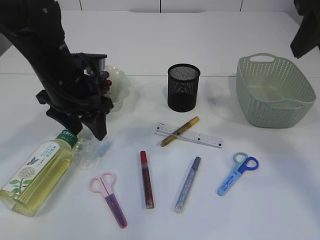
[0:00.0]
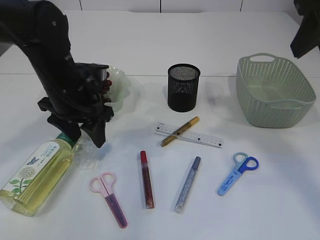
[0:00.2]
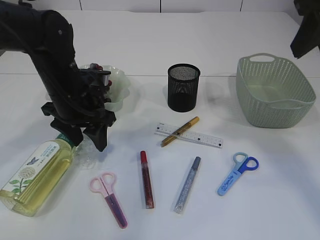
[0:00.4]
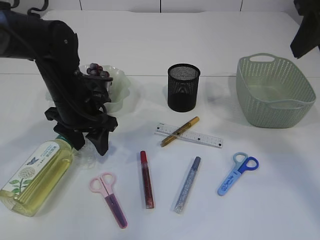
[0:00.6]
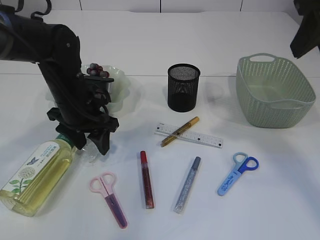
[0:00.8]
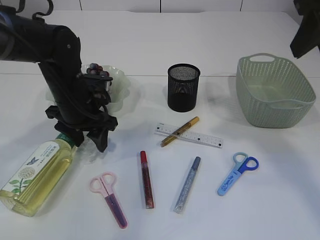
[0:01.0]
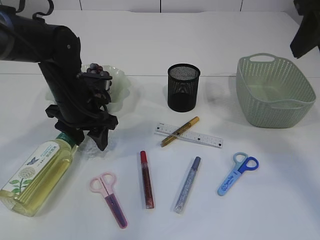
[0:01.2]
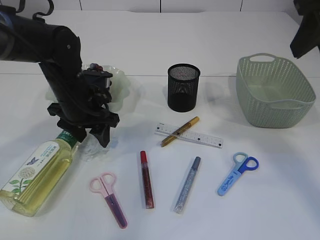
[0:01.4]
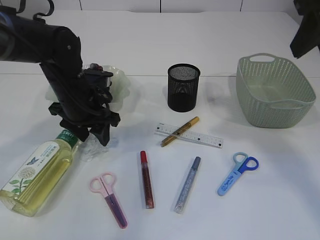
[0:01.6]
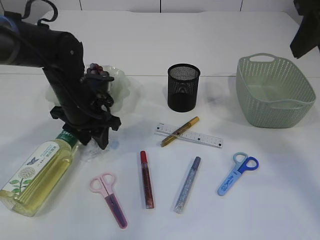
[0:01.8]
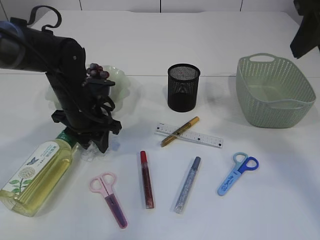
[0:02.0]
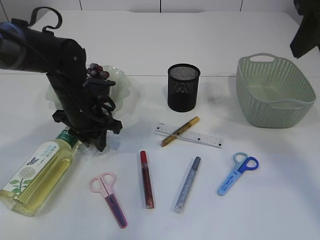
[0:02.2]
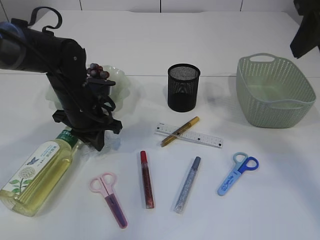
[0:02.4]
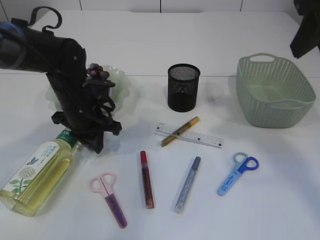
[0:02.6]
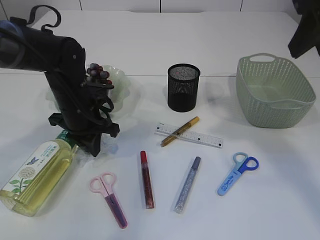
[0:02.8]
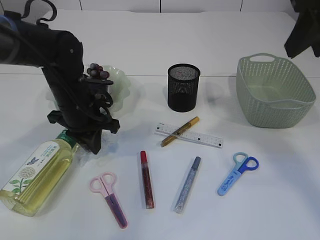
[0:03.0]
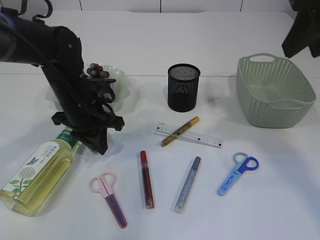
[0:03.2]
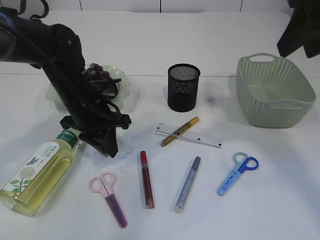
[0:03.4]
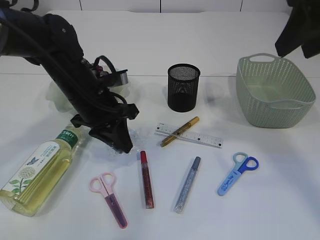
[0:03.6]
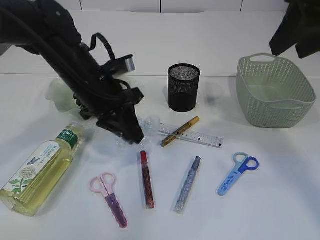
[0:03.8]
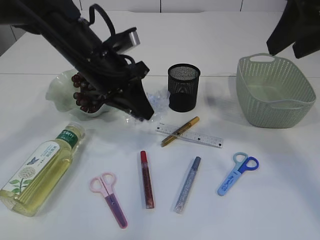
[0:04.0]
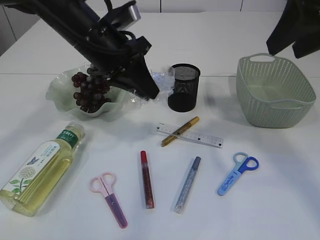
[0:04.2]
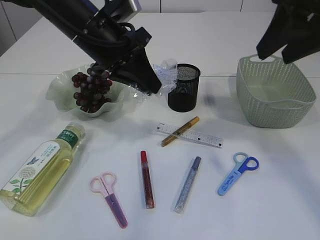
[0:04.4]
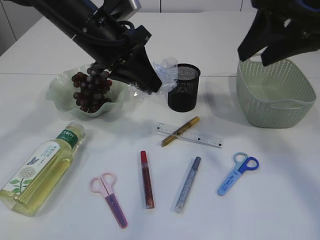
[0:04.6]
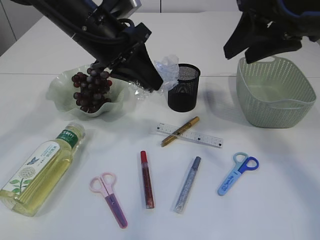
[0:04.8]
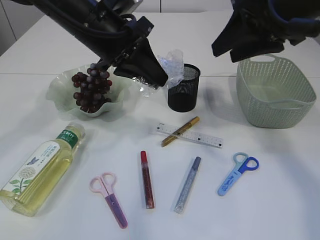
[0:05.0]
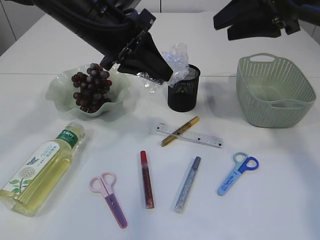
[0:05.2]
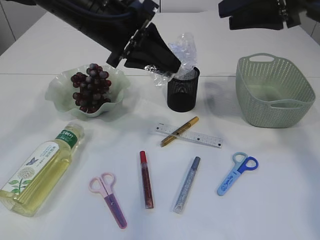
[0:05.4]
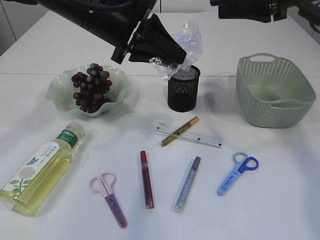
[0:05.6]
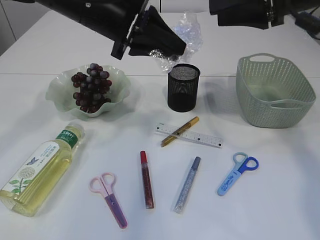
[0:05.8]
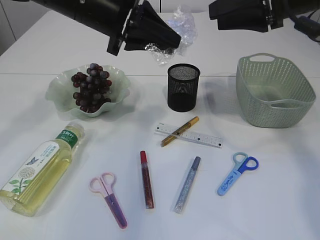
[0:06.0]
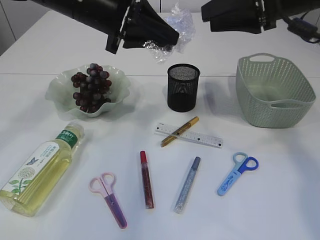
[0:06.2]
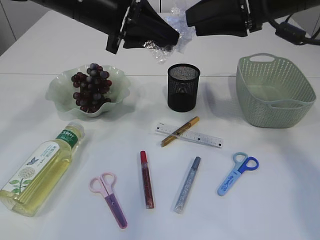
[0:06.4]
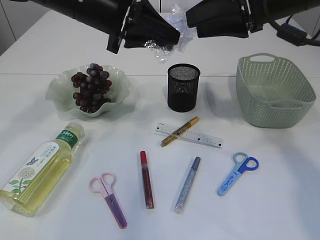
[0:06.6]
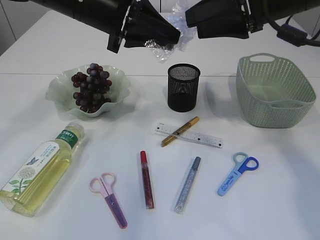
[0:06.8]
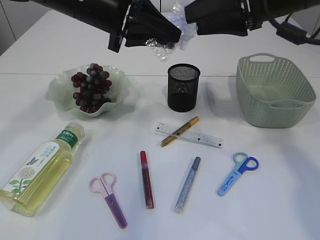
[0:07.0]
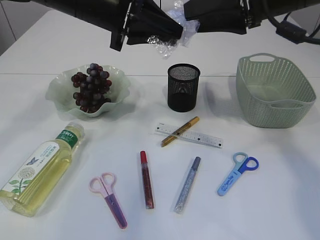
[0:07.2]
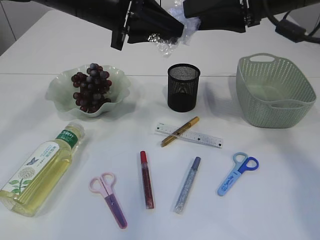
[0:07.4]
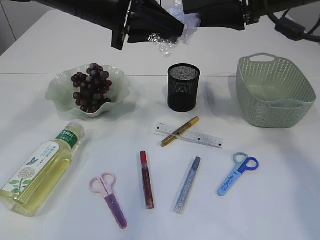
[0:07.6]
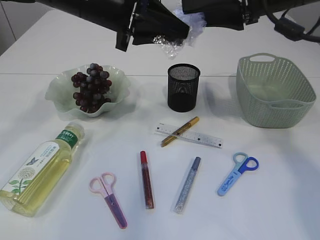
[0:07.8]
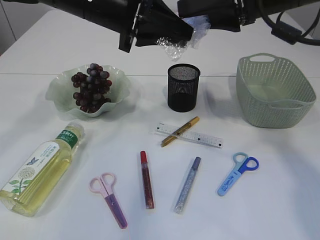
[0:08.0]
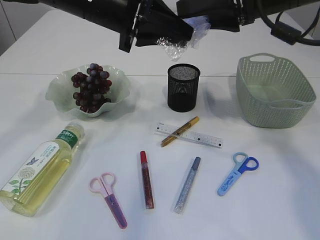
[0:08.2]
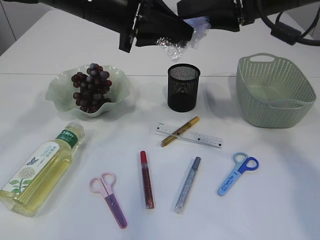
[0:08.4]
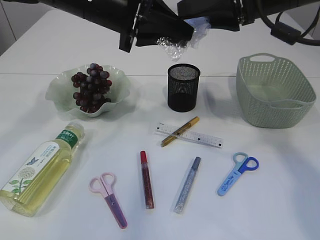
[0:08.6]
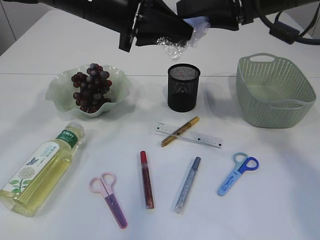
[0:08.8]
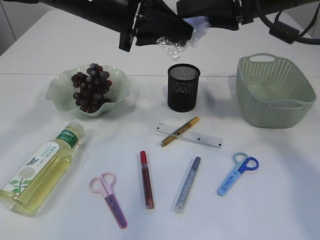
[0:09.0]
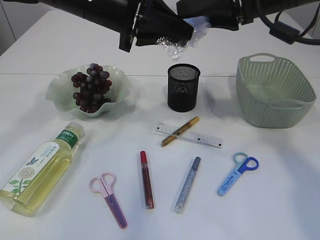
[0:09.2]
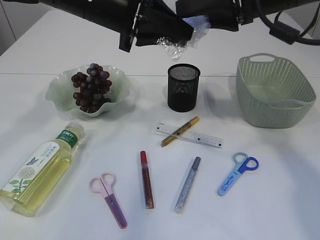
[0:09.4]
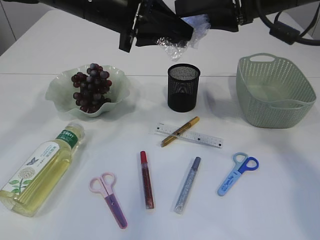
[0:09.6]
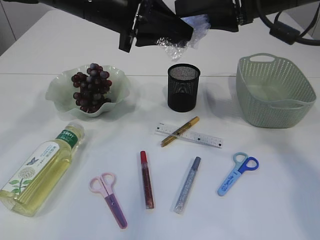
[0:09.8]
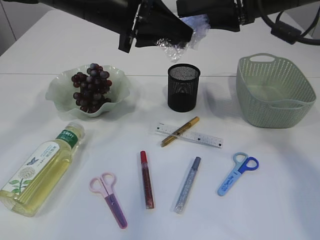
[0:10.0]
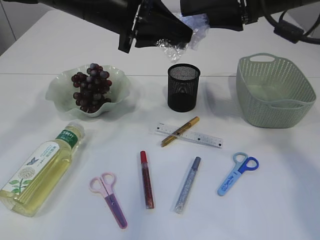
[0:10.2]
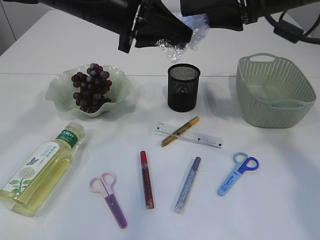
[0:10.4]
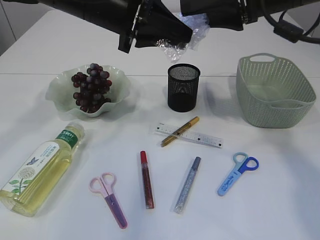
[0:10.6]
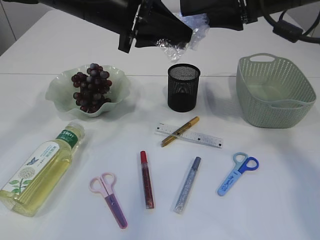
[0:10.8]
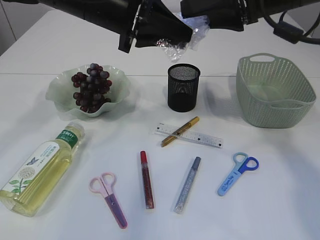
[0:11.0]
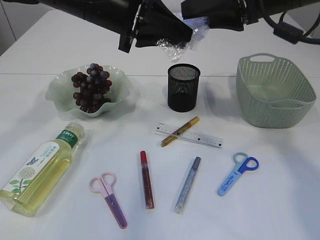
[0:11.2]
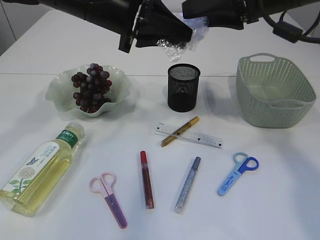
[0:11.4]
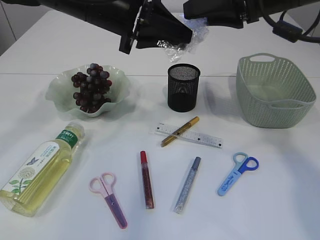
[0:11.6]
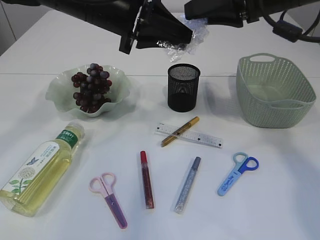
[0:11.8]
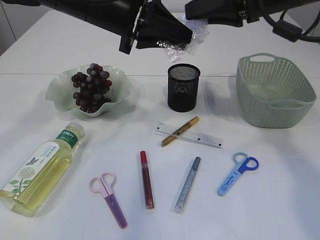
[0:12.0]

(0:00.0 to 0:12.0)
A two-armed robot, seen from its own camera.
Step, 0:00.0 - 0:04.4: Pick up the plastic.
0:00.0 - 0:01.6: The left gripper shifts roughly 5 cm downward.
0:01.6 - 0:03.0: The left gripper closes its fingers.
0:03.0 - 0:04.4: The left gripper goes about 15 cm upward.
0:04.4 - 0:06.0: The right gripper travels forward by approximately 10 cm.
0:06.0 - 0:07.6: The grippers move only a little.
0:07.6 - 0:10.4: Both grippers stay about where they are.
0:10.4 - 0:12.0: The right gripper closes its fingers.

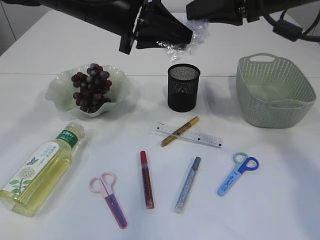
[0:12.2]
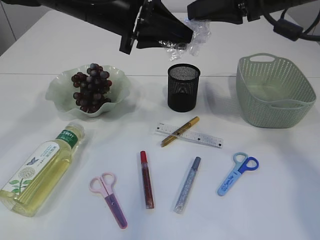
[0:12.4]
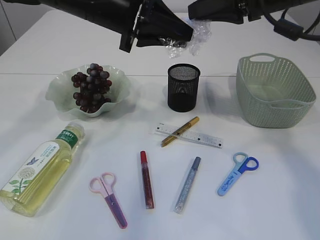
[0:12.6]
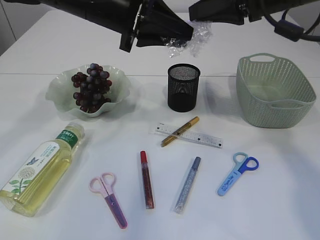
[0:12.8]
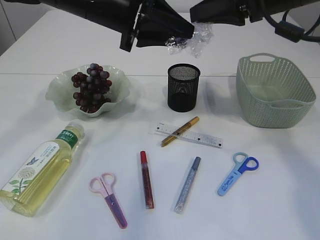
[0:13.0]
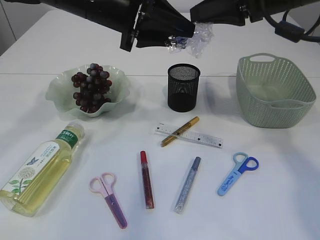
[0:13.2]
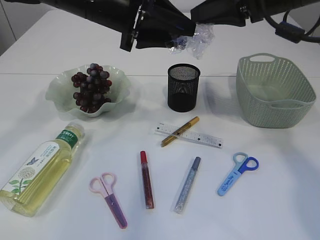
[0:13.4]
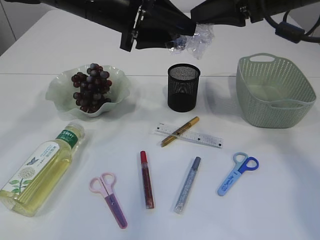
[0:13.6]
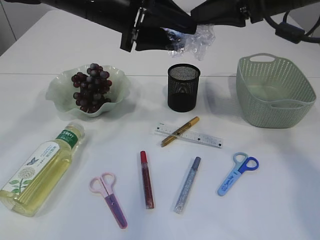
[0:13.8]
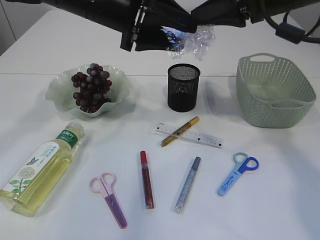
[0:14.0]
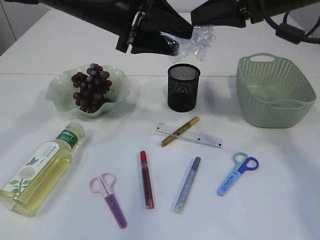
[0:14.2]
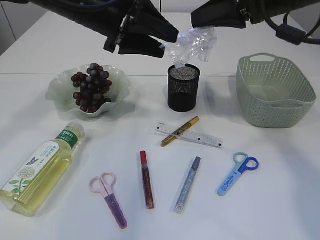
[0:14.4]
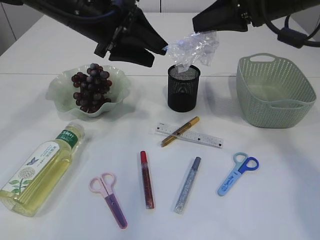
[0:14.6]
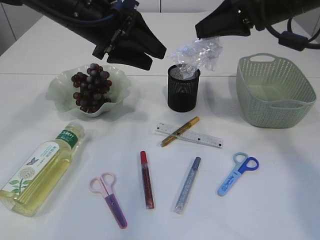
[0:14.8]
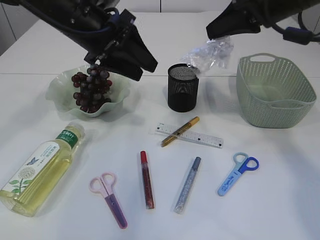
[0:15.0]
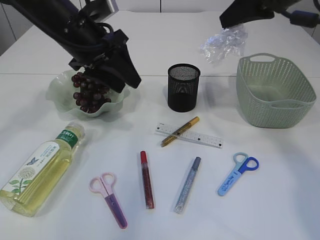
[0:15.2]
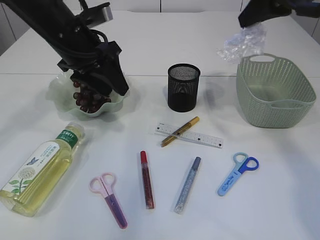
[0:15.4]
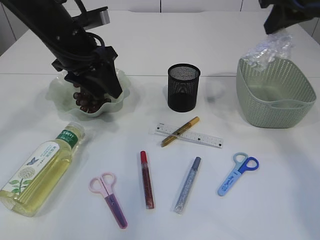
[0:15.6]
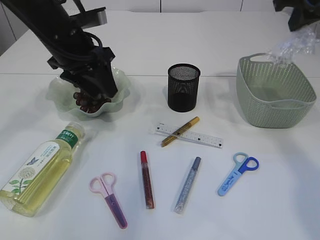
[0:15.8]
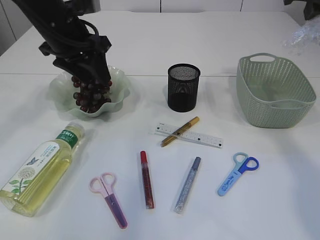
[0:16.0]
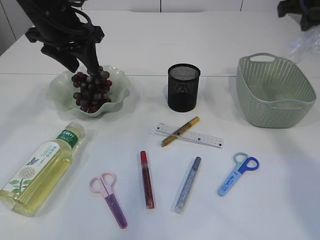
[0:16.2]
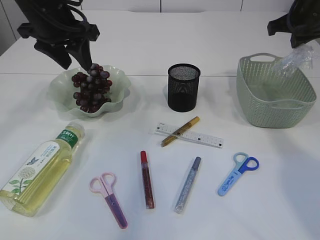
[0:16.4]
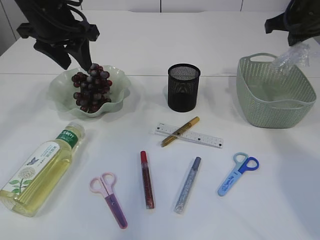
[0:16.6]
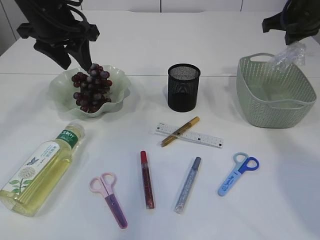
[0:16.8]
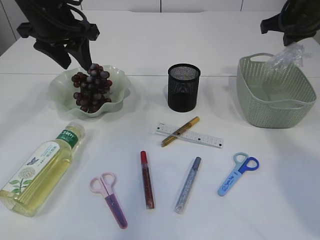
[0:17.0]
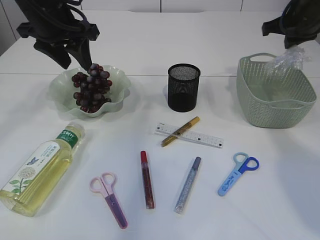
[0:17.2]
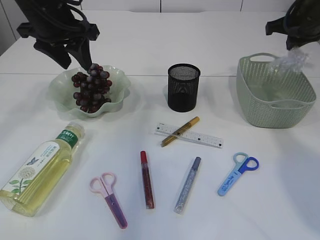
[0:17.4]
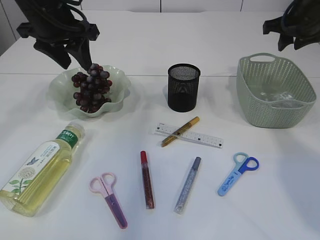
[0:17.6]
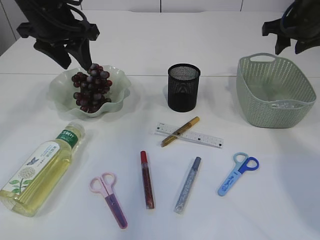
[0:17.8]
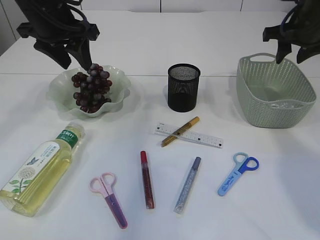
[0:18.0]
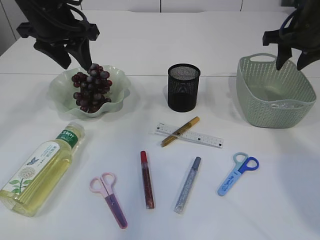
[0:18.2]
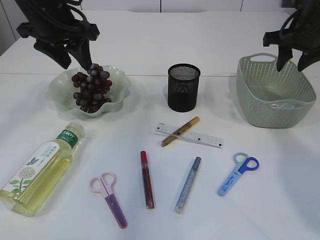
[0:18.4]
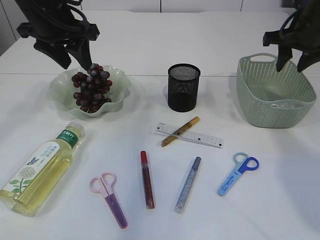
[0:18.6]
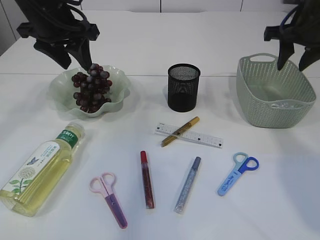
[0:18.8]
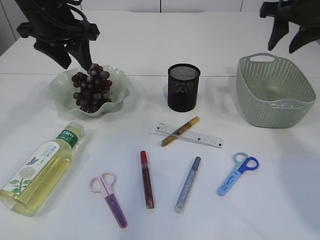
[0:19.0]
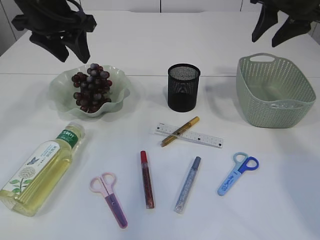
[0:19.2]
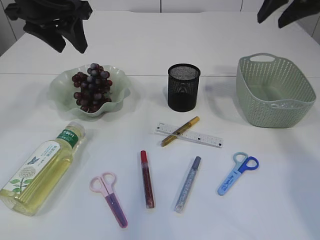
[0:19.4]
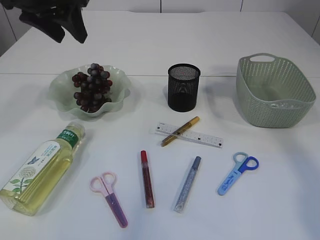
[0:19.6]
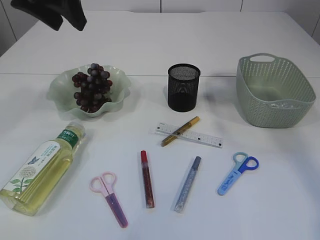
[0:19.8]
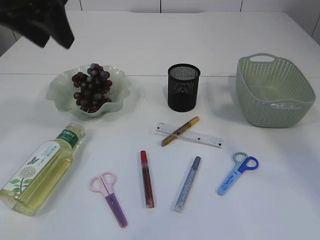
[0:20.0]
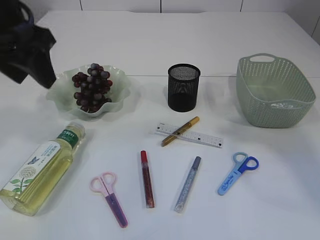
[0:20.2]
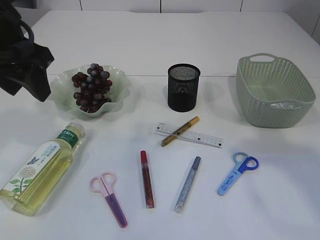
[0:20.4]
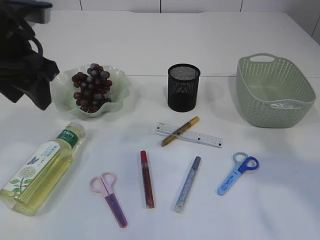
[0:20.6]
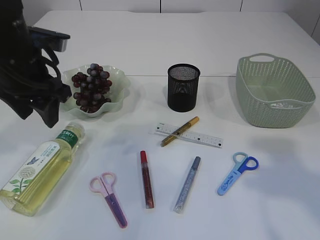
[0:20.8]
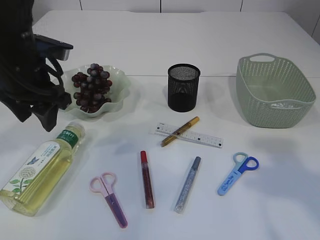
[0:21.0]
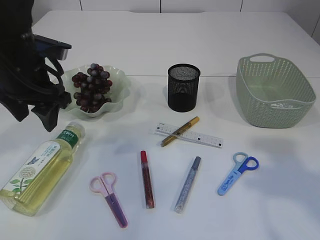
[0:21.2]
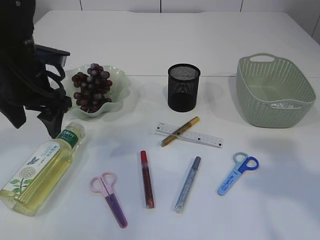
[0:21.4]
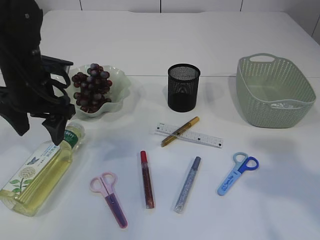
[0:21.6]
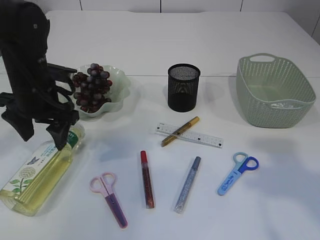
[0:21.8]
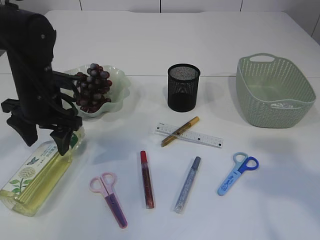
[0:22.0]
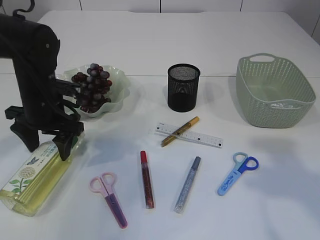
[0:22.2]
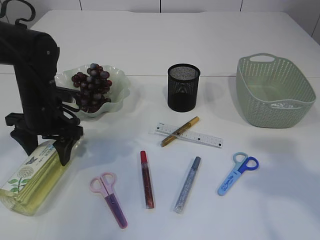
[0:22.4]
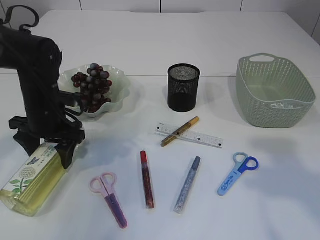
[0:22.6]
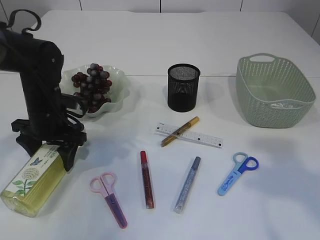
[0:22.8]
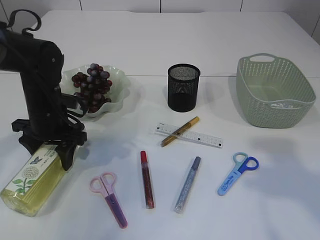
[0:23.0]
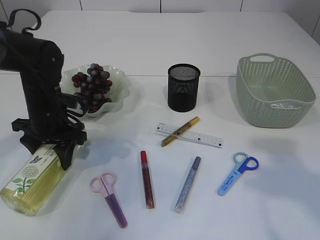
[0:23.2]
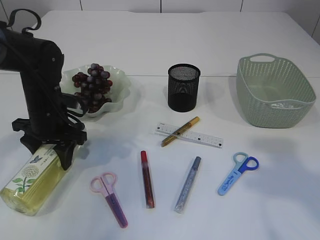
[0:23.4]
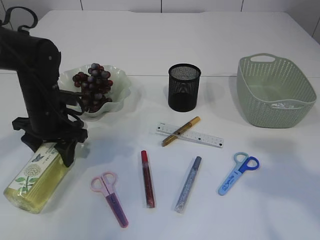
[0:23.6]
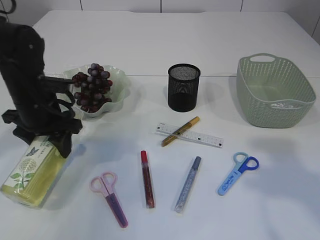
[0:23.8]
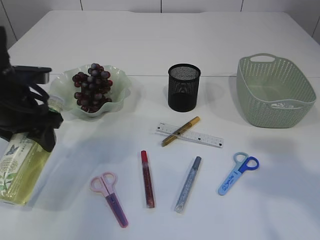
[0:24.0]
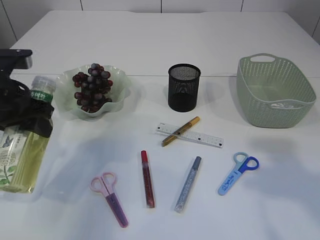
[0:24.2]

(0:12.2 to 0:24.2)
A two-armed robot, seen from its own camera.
Step, 0:12.2 - 0:15.0: Hand over the plastic.
Step, 0:15.2 - 0:18.4: Place the plastic in the basket.
0:12.2 - 0:13.8: The left gripper opens its fingers.
0:13.8 - 0:15.2: The left gripper moves some 5 cm.
0:15.2 - 0:16.6: The left gripper changes place by about 5 cm. The right gripper heads to the right, forward and downward, covering approximately 10 cm.
0:16.6 - 0:18.2: The right gripper opens up.
0:18.2 - 0:19.8: The left gripper goes about 10 cm upward and backward. Meanwhile the right gripper shifts some 20 cm upward and backward.
0:19.8 - 0:21.2: The right gripper shifts roughly 20 cm backward and downward. The left gripper shifts roughly 15 cm downward.
0:21.2 - 0:22.6: The left gripper goes some 10 cm downward.
0:22.6 - 0:24.2: The left gripper travels upward and backward by roughly 10 cm.
